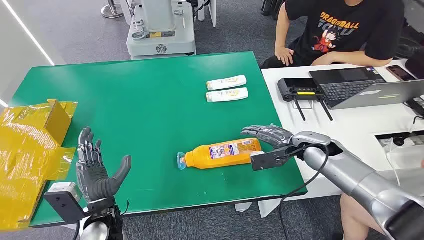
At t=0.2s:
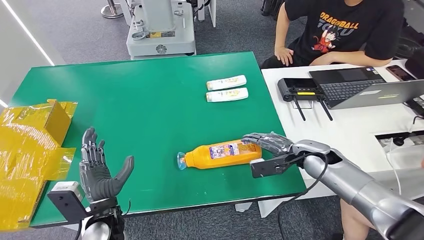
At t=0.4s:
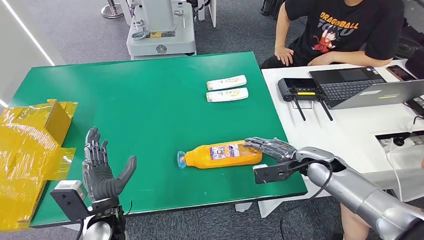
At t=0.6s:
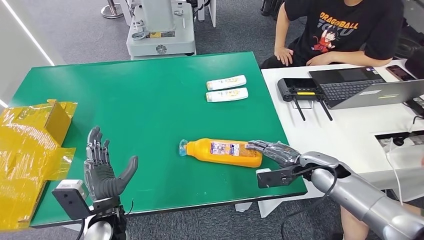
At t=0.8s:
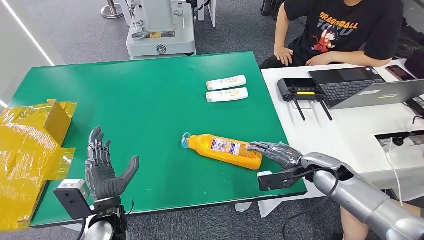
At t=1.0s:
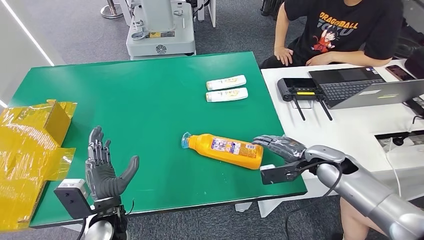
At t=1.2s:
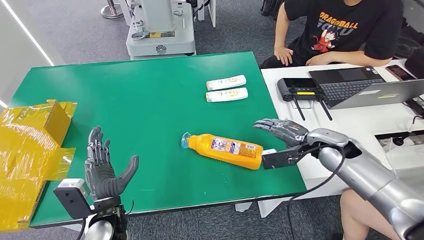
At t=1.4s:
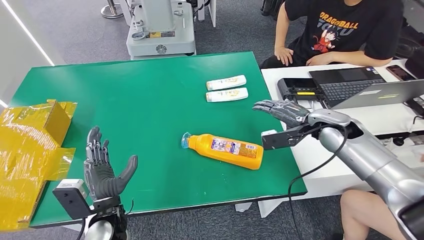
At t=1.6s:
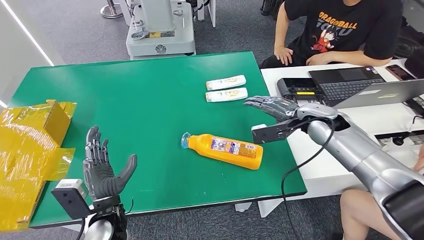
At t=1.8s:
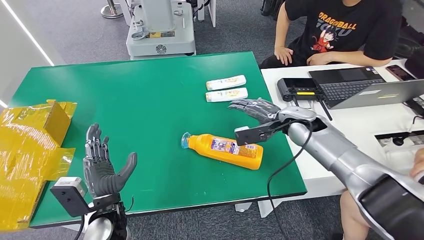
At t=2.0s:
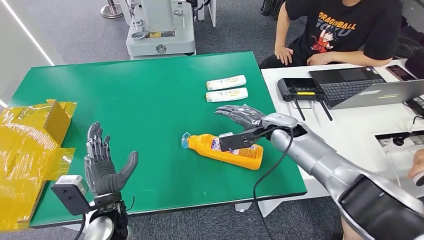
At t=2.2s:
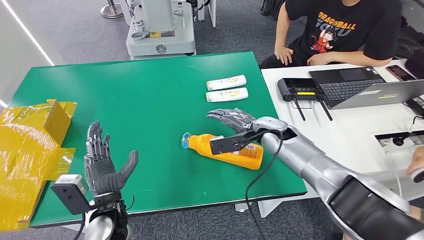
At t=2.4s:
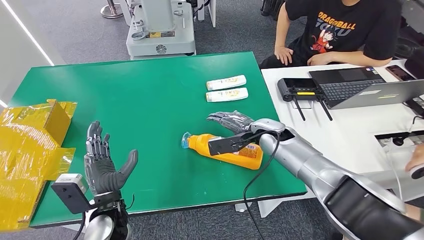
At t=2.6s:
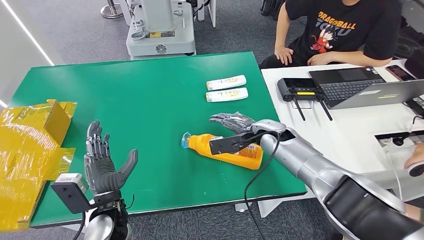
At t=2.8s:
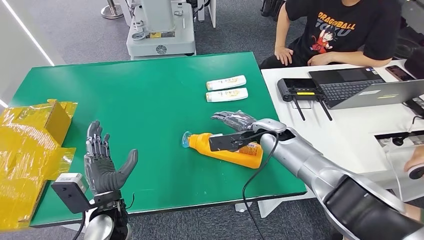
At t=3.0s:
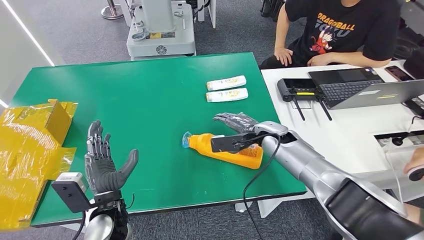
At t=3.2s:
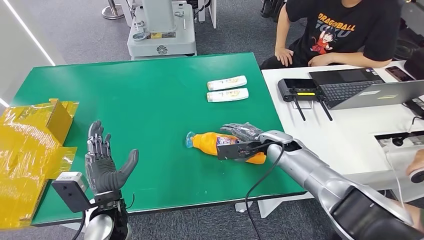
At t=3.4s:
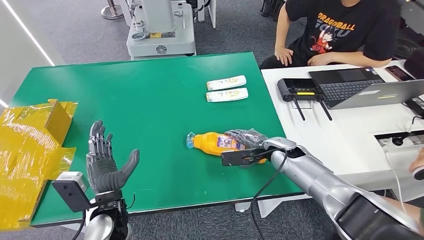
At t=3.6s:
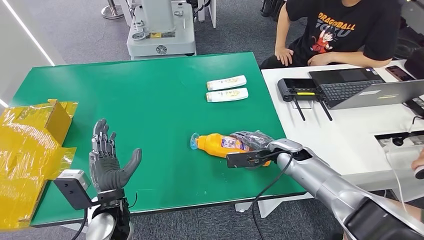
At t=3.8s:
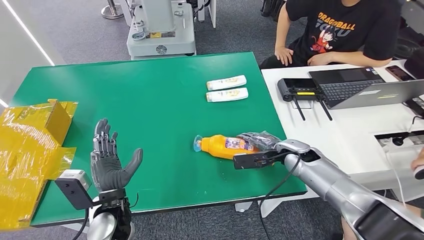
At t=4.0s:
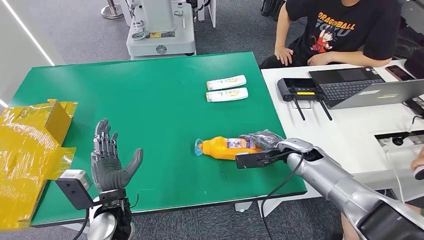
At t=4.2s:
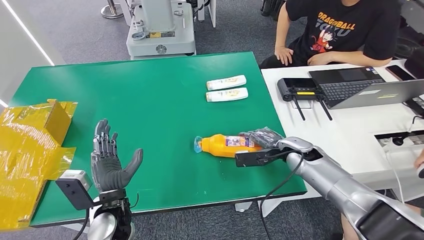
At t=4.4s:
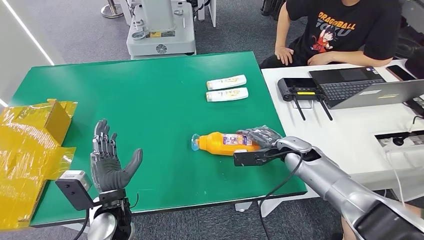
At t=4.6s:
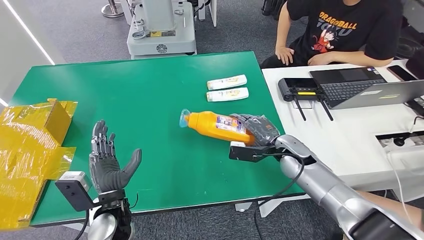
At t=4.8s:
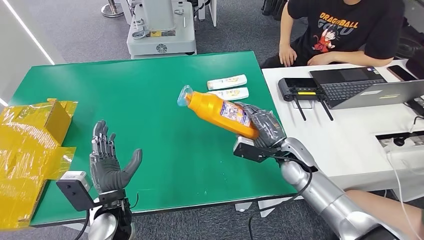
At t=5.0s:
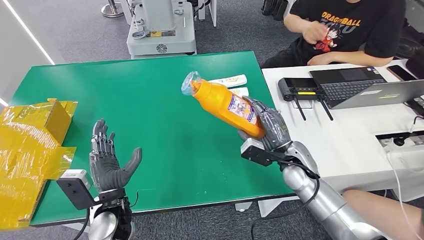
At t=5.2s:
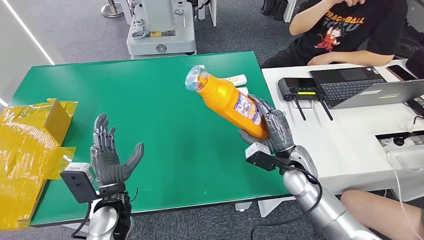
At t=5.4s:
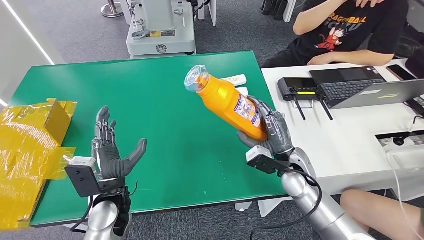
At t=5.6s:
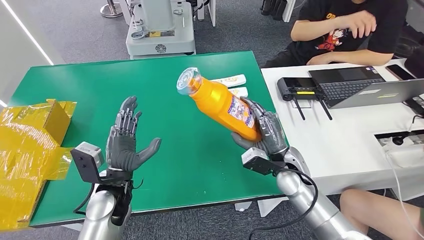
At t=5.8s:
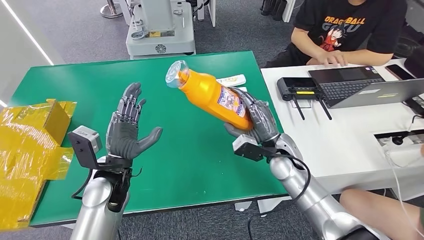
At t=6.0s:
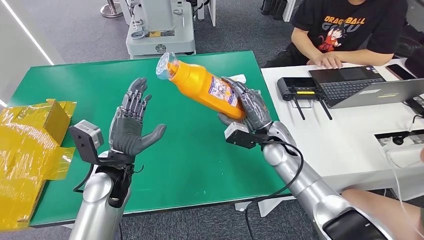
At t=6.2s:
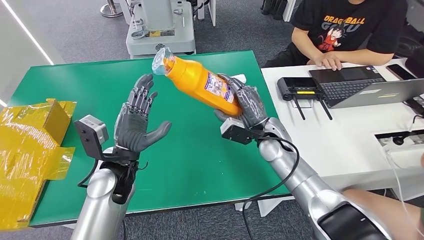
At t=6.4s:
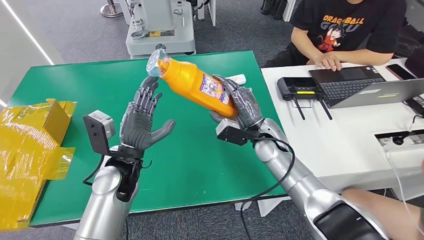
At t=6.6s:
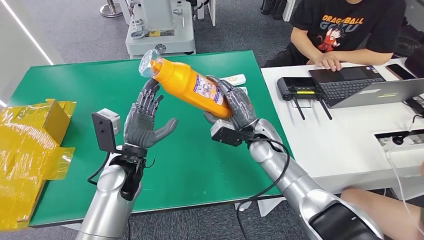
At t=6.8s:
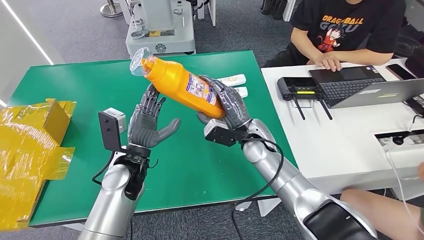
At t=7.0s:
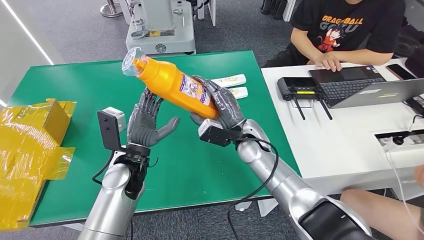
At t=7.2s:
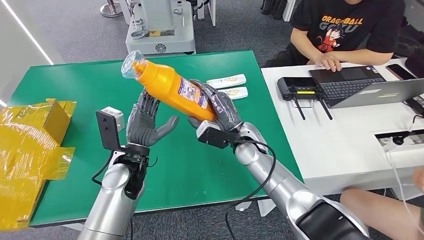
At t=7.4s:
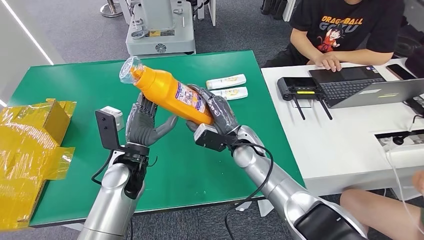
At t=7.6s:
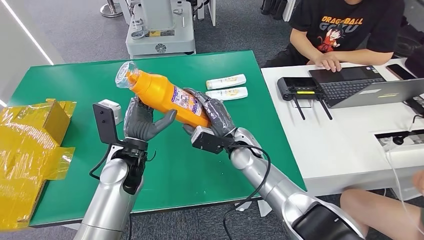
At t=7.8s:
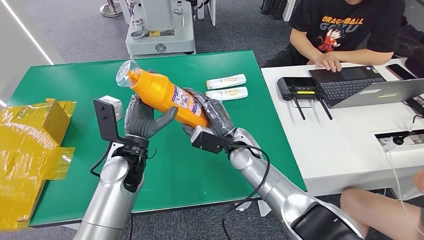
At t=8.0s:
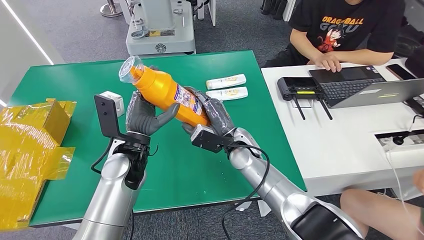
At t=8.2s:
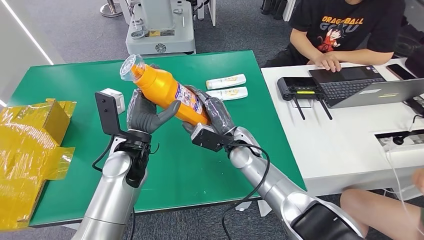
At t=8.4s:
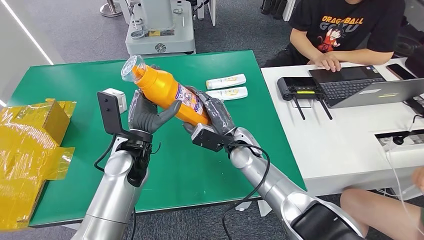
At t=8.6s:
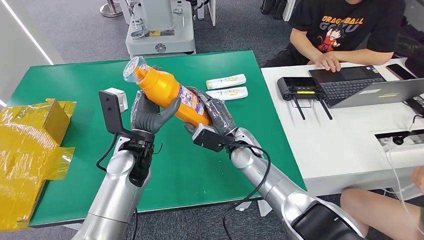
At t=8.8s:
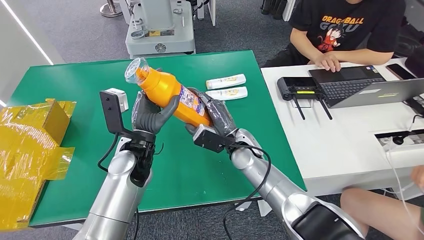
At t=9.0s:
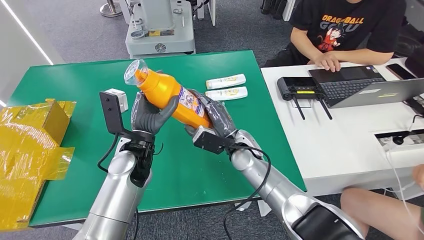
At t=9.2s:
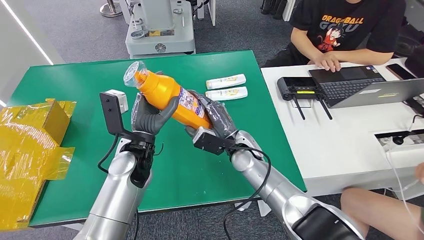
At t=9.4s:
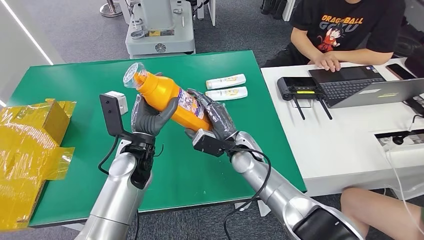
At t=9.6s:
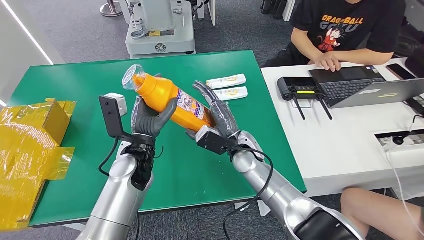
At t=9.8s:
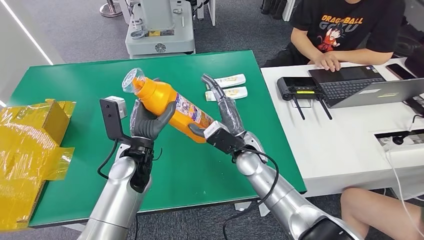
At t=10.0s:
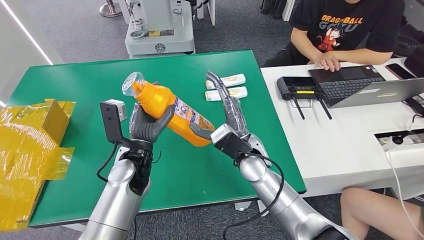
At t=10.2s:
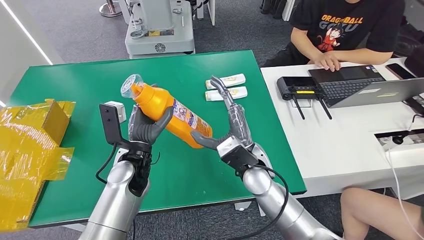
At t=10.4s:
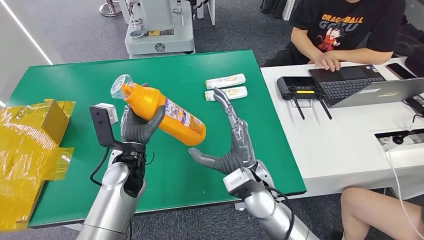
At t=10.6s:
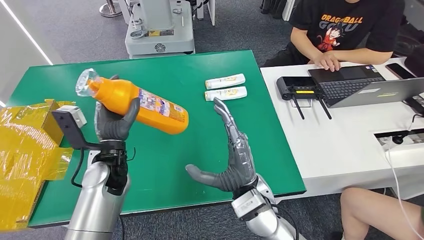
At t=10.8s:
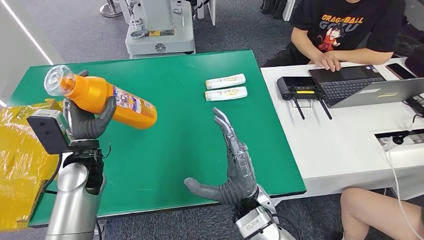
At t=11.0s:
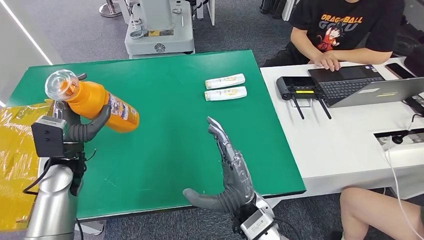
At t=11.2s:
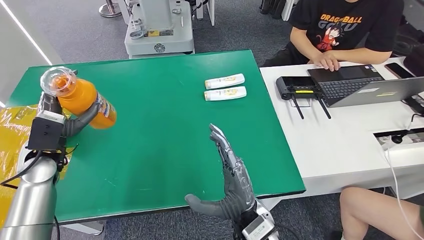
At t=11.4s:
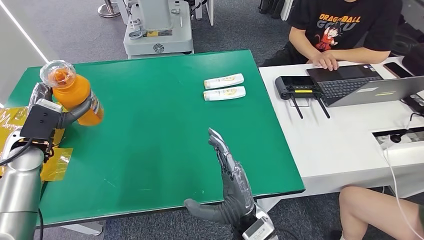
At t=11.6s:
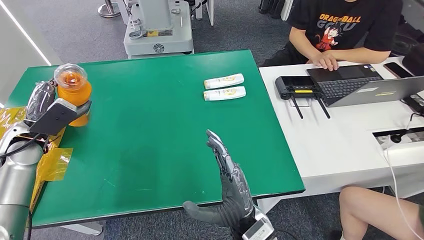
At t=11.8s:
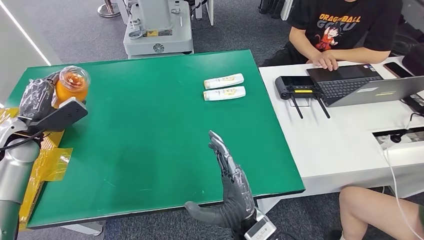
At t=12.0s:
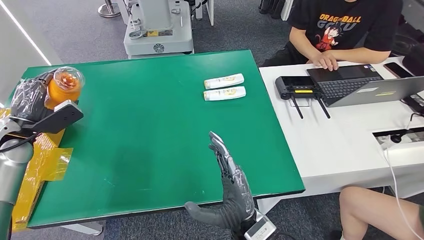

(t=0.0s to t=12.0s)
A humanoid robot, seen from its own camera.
Step, t=0.0s - t=5.2s: Pick up the bottle from the table.
t=3.0s - t=4.4s: The right hand heads to the right, covering about 5 cm.
t=7.6s - t=9.0s: The hands stay close to where they were, moving slightly.
t=9.0s - t=10.4s: The right hand moves backward, roughly 10 cm.

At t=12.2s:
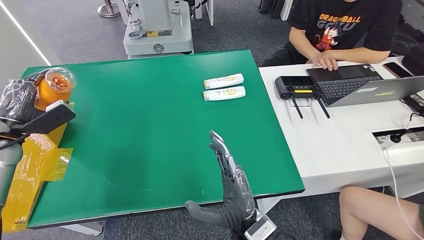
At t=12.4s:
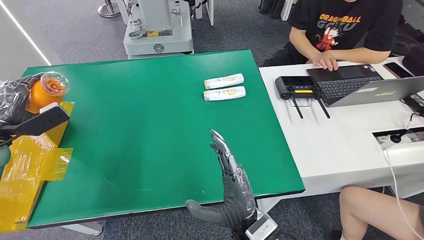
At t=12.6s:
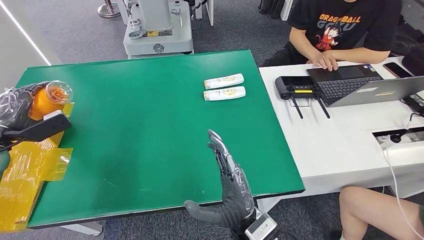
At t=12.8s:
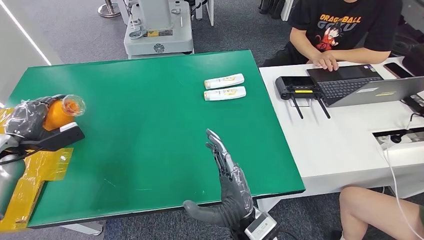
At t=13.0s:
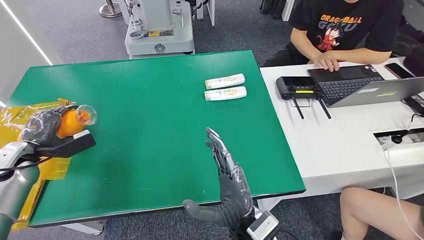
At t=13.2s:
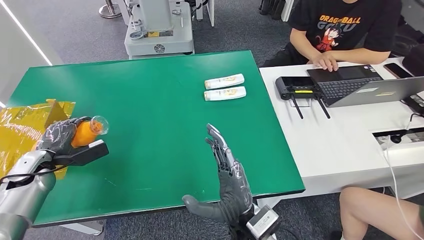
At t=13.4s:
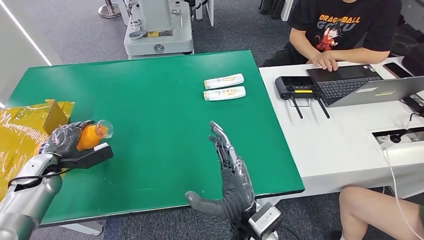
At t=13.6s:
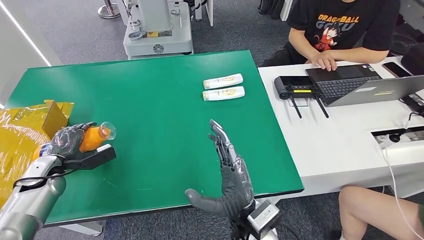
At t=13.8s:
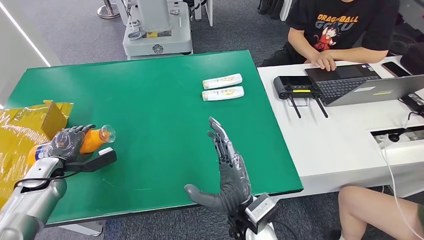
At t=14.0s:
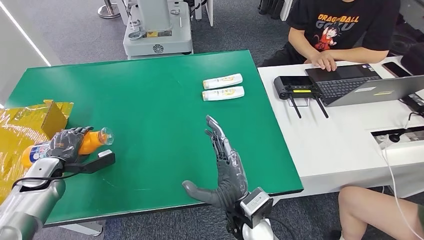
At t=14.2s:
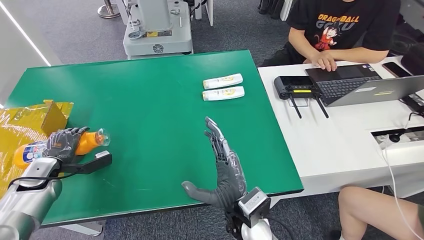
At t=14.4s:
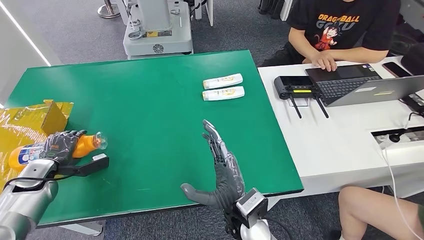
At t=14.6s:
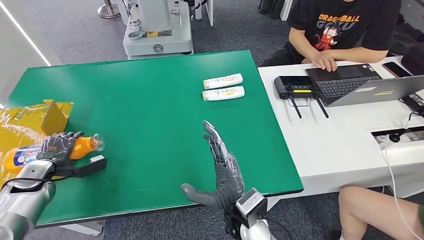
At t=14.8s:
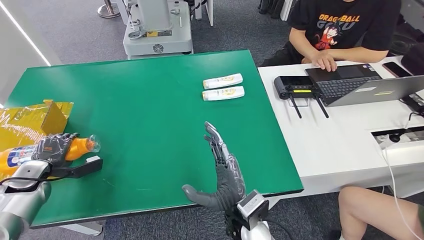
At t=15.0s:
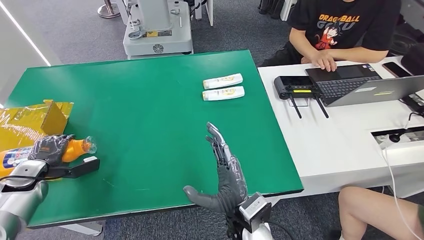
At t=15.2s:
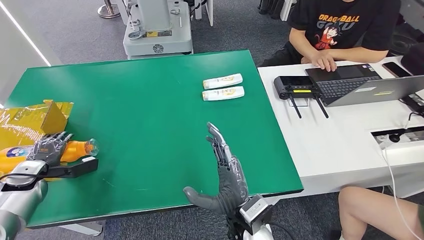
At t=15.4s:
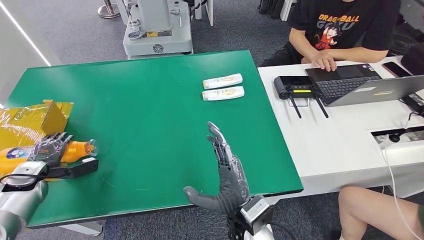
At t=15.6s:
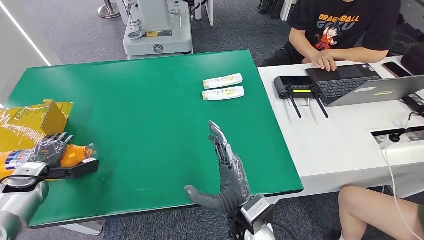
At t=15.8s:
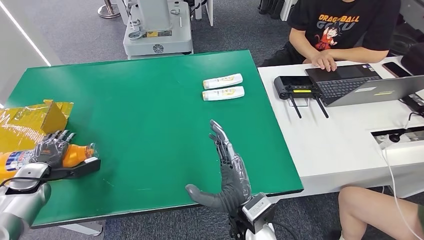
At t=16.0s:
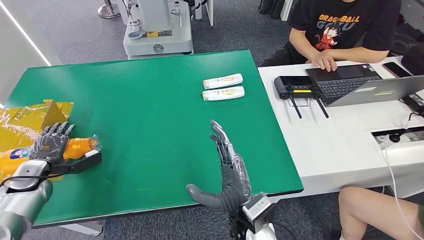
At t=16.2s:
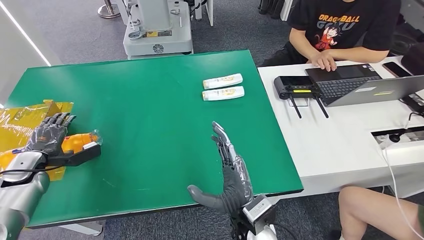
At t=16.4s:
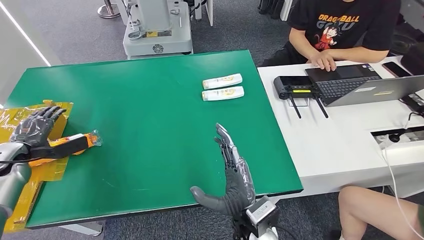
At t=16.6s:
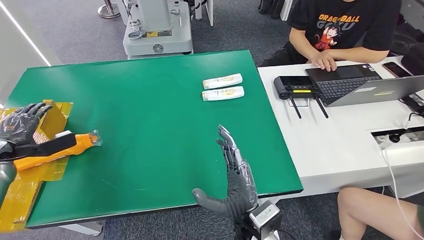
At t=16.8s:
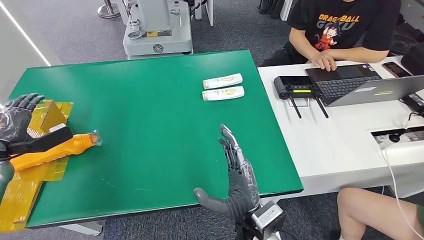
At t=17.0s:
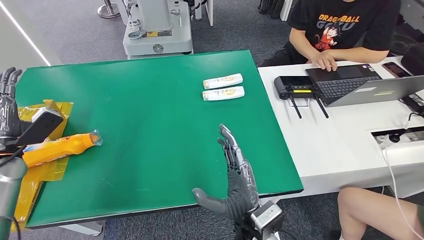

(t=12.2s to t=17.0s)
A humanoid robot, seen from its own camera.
Step, t=12.2s - t=17.0s: Turn the bottle to the front side.
t=12.2s - t=13.8s: The left hand is displaced downward by some 15 cm.
t=13.8s - t=15.4s: The left hand is displaced to the left by roughly 5 cm.
t=15.4s - t=17.0s: The left hand moves upward, some 10 cm.
